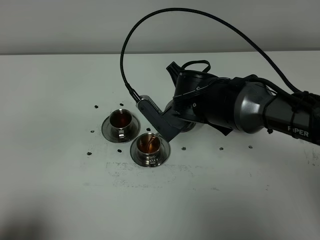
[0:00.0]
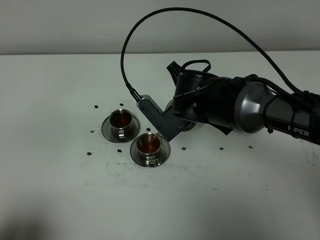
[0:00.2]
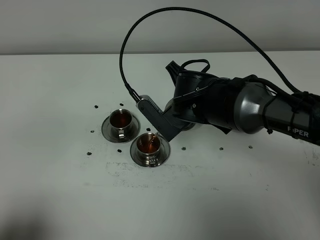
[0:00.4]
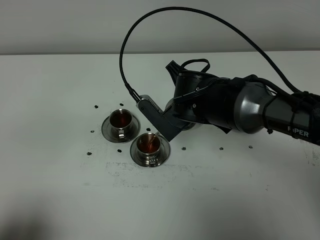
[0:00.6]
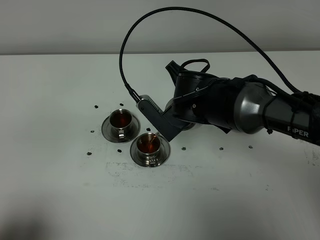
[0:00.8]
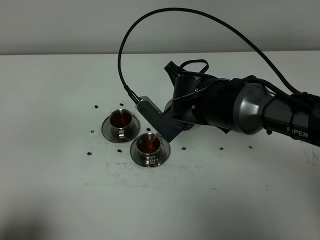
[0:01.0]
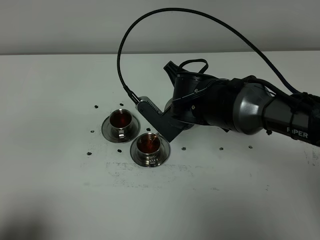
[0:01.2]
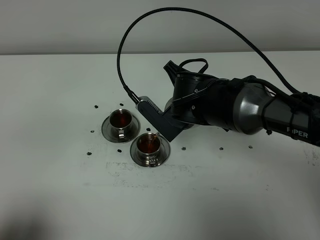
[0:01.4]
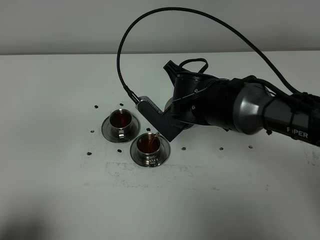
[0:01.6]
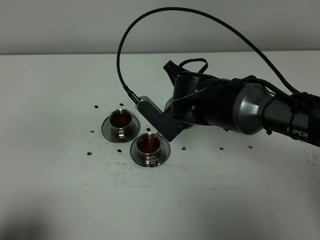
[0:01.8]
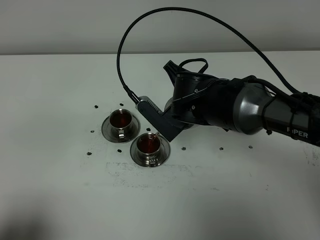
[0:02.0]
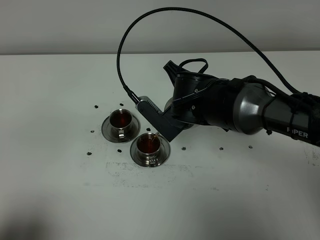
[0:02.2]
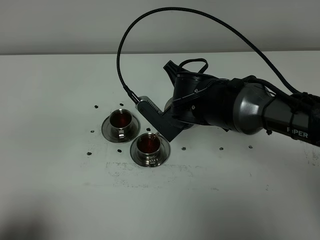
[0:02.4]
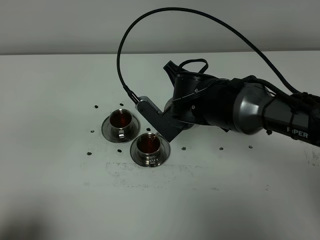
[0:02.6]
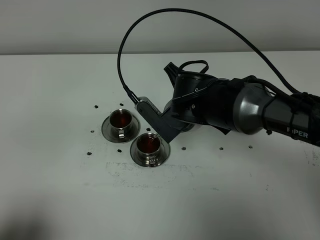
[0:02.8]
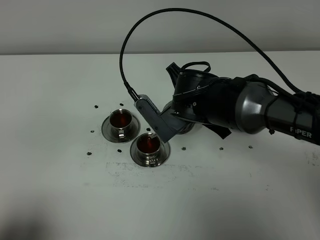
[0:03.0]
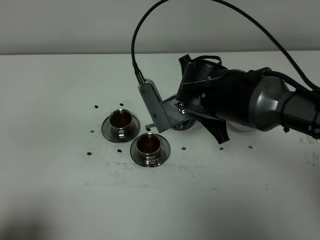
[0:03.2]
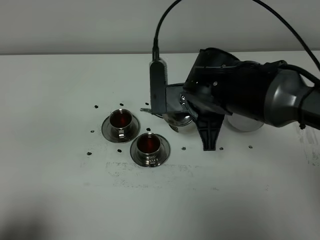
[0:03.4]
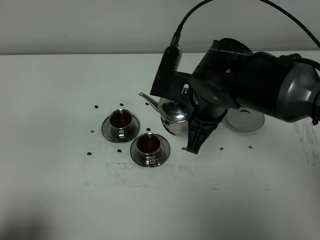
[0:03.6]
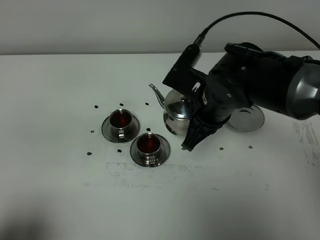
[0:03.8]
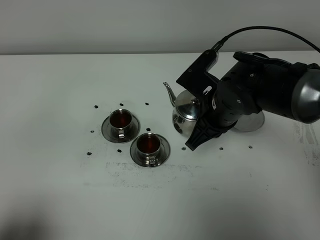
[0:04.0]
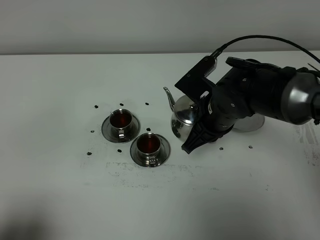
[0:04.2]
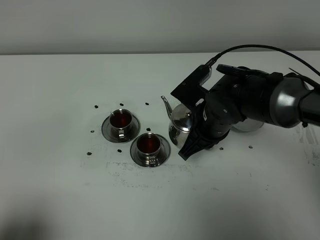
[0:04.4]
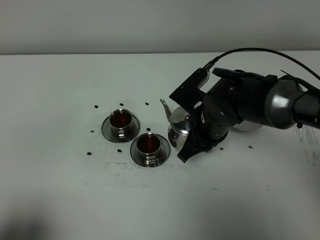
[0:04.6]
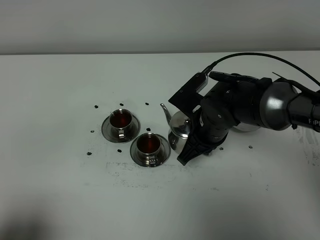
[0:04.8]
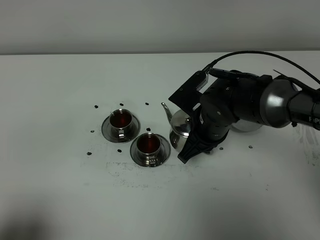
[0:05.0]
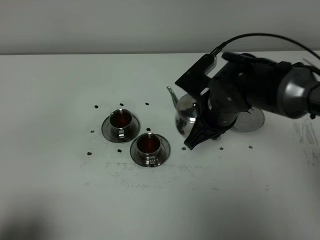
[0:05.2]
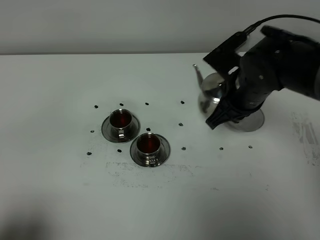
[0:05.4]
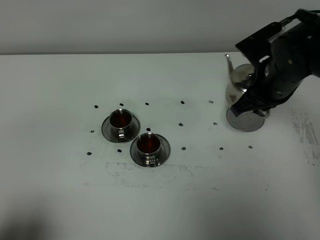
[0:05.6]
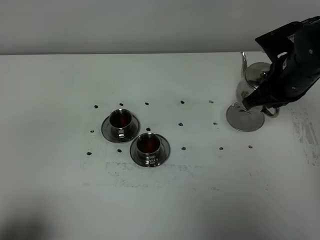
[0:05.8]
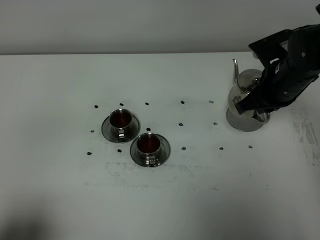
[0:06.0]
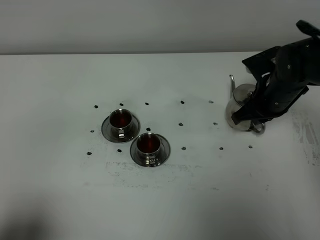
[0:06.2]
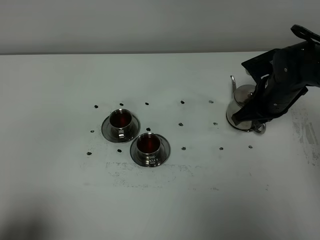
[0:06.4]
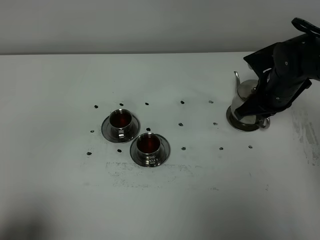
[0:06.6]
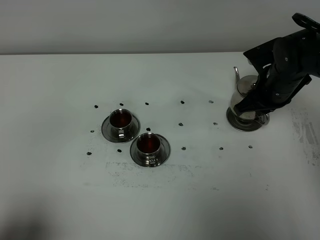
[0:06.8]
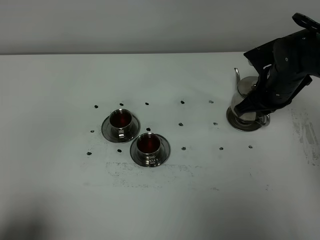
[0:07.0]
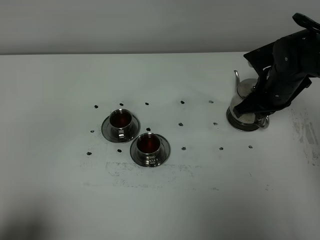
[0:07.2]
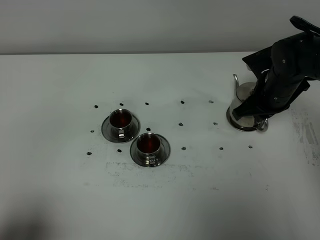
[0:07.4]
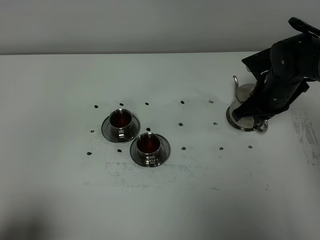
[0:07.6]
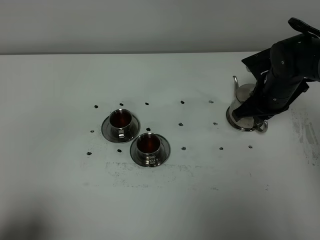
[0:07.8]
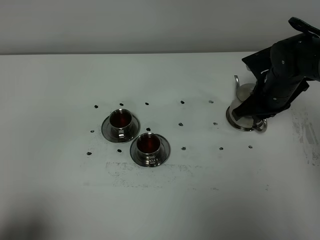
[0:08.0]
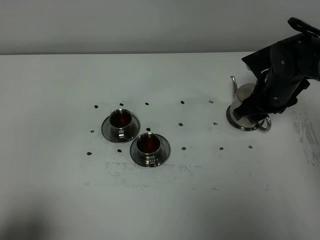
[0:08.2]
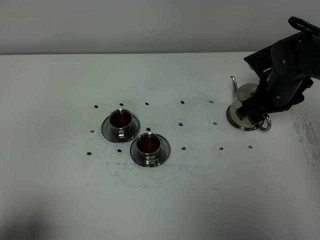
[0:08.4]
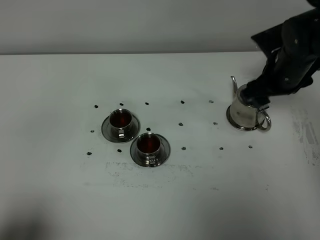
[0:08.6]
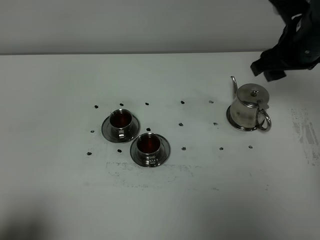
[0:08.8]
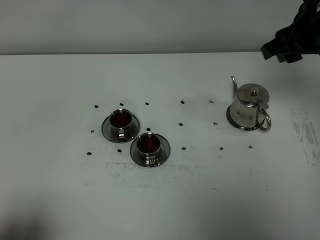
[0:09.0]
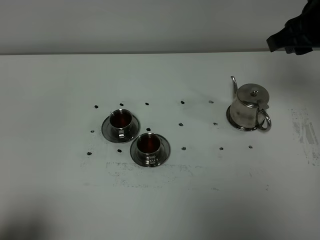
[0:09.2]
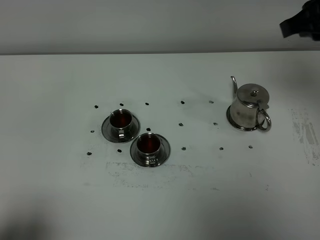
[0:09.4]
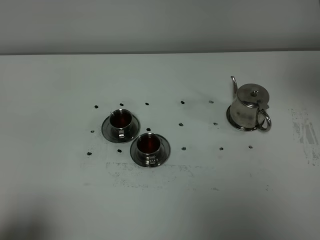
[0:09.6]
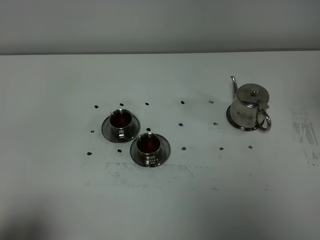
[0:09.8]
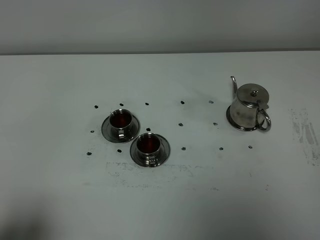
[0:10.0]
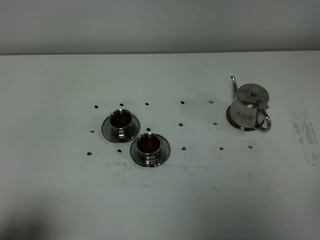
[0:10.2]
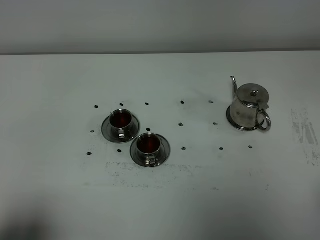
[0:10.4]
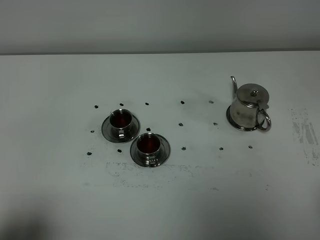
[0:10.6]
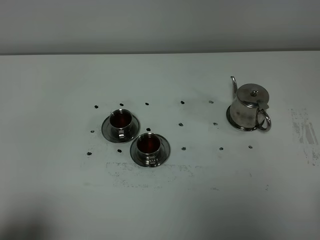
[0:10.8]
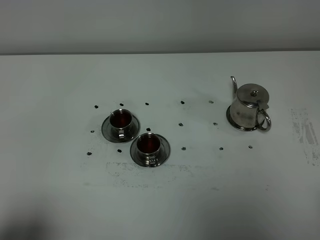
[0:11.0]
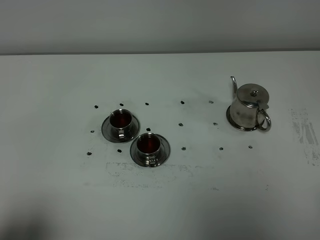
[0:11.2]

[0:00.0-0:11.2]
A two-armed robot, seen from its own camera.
Task of the whole recording: grasp the stainless steel teapot and pour the tea into the two stainless steel teacups one by one, put the stainless steel teapot back in its original place.
Step, 0:00.0 to 0:03.2: Pour tea into the teacup with the right gripper.
0:00.0 to 0:01.6: The two grippers keep their place.
0:03.2 to 0:04.8: The right gripper goes some 5 cm downward.
0:04.8 to 0:06.4: The right gripper moves to the right, roughly 15 cm.
0:06.4 to 0:08.0: The right gripper opens.
0:08.0 to 0:09.6: The right gripper moves upward and backward, roughly 35 cm, and opens, then closes once more.
0:09.6 to 0:11.2: The right gripper heads backward and downward, covering approximately 30 cm.

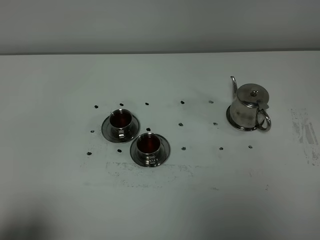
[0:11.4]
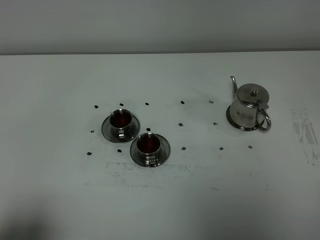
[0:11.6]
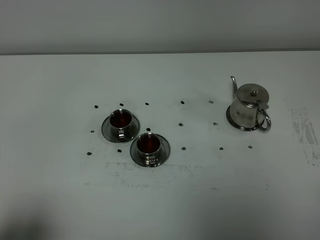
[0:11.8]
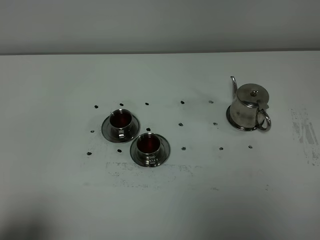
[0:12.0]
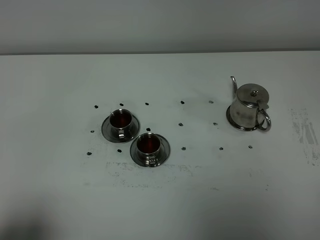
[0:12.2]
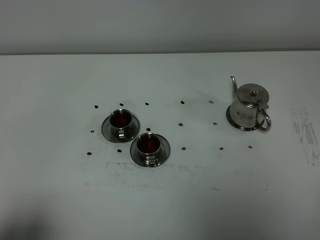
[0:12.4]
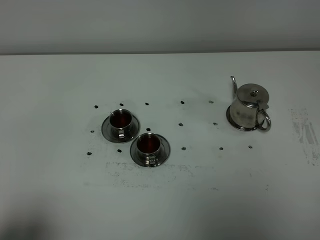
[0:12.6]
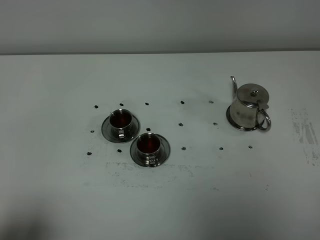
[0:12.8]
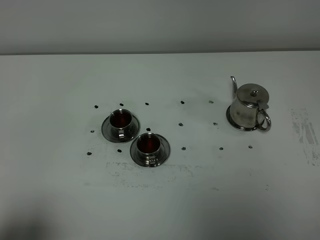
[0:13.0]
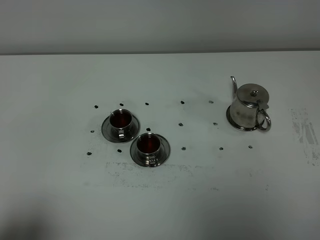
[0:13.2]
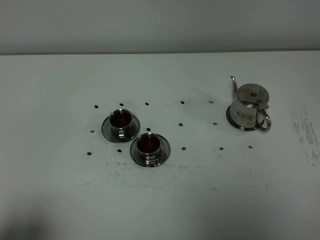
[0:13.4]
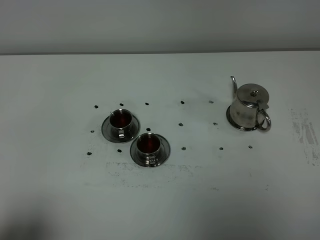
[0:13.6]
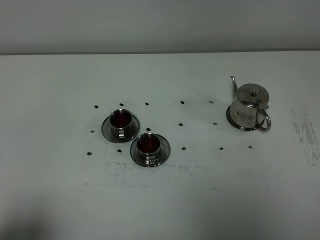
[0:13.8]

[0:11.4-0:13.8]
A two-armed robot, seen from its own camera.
Task of the whole recording: grasp the stainless steel teapot and pour the tea into the two stainless steel teacups one by one, put the stainless steel teapot back in its original place.
0:11.4 to 0:13.8: Both grippers stay put.

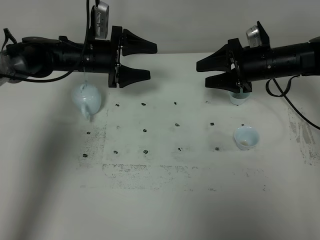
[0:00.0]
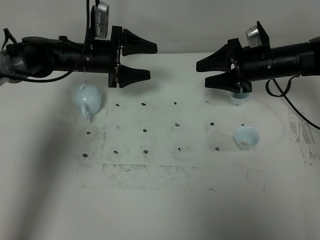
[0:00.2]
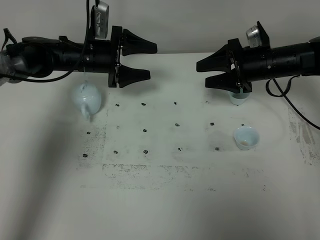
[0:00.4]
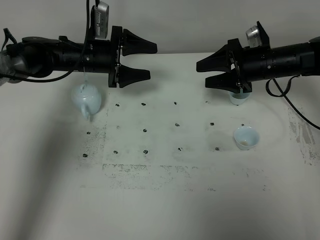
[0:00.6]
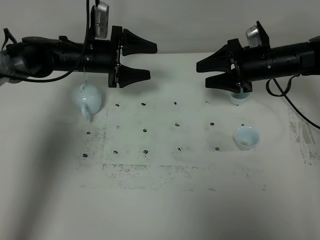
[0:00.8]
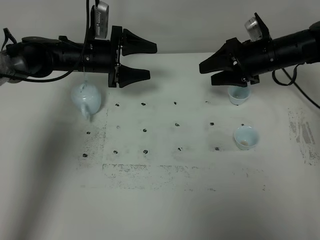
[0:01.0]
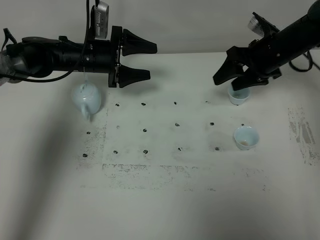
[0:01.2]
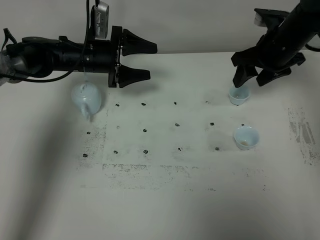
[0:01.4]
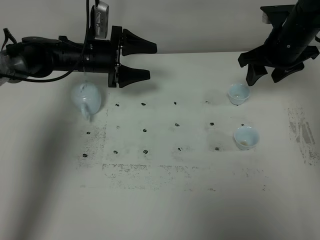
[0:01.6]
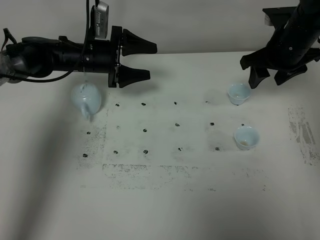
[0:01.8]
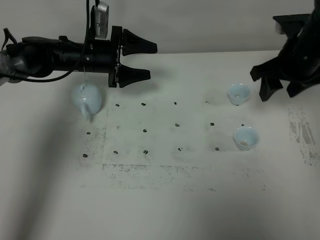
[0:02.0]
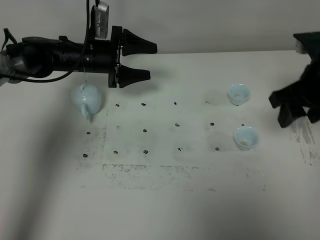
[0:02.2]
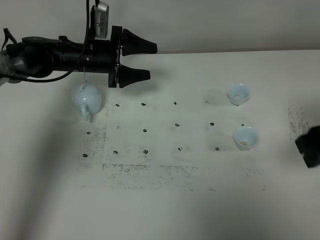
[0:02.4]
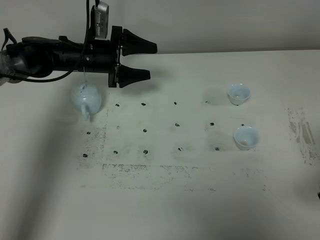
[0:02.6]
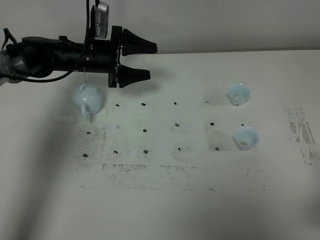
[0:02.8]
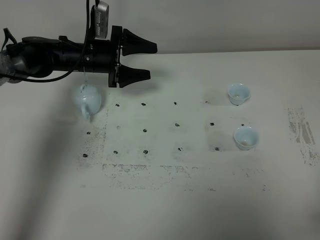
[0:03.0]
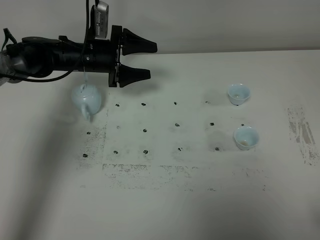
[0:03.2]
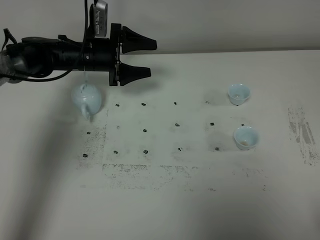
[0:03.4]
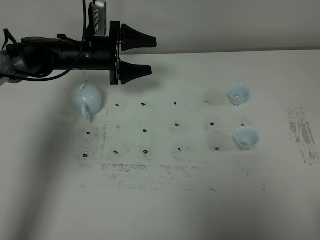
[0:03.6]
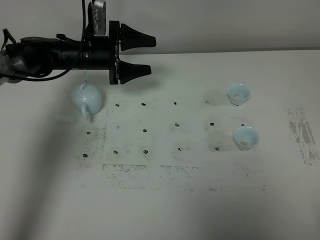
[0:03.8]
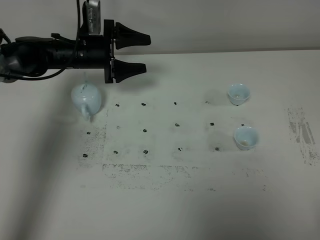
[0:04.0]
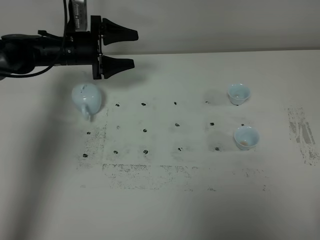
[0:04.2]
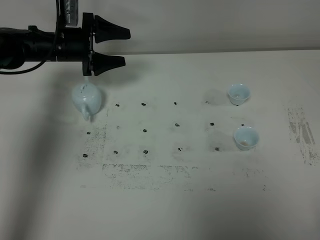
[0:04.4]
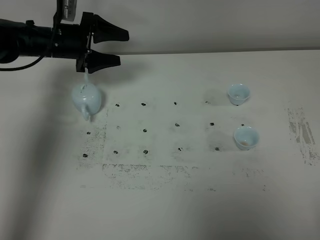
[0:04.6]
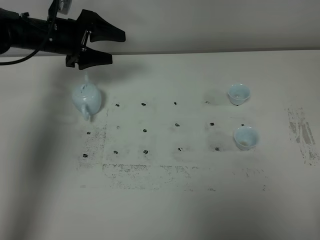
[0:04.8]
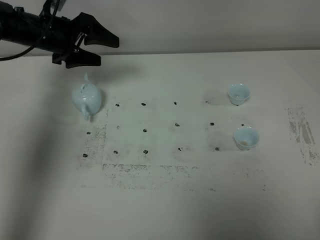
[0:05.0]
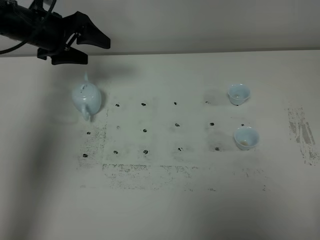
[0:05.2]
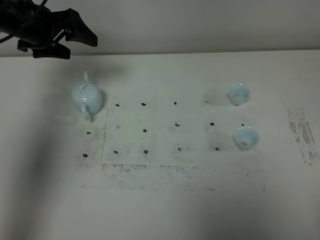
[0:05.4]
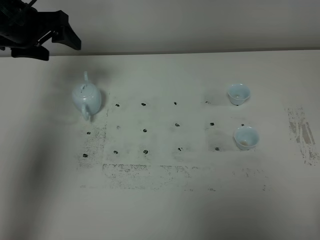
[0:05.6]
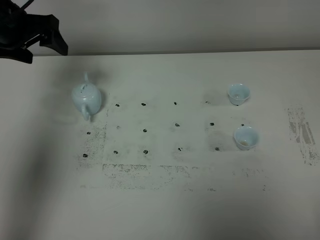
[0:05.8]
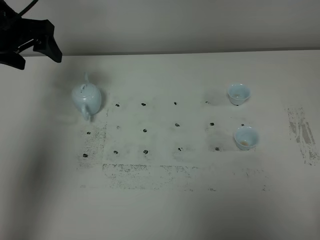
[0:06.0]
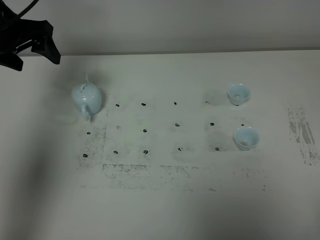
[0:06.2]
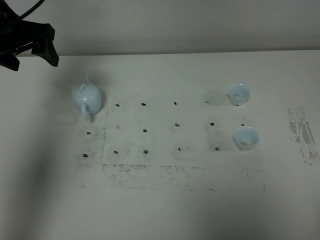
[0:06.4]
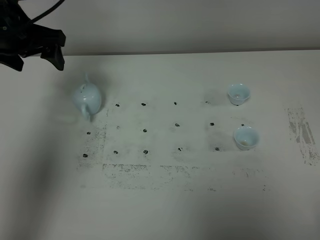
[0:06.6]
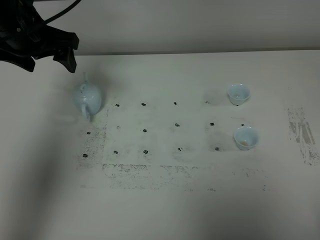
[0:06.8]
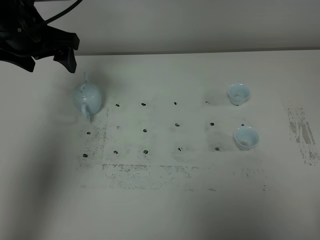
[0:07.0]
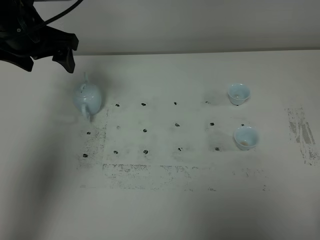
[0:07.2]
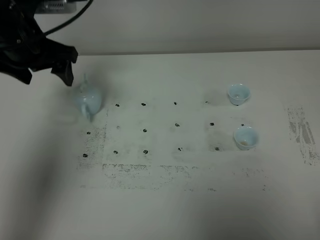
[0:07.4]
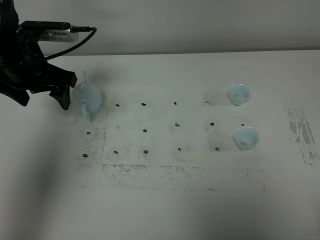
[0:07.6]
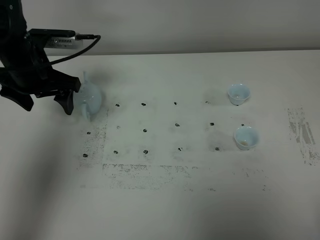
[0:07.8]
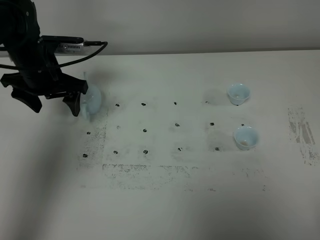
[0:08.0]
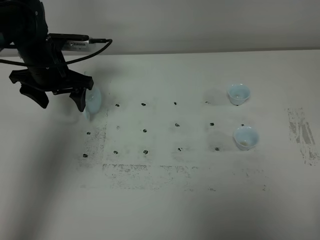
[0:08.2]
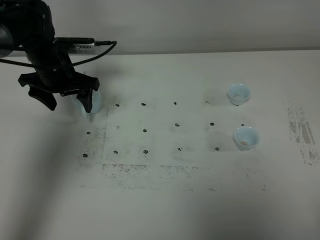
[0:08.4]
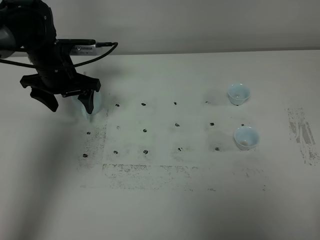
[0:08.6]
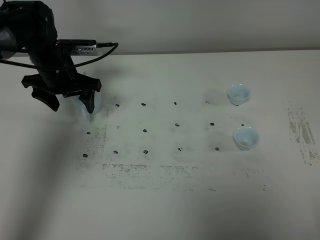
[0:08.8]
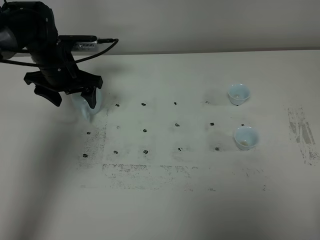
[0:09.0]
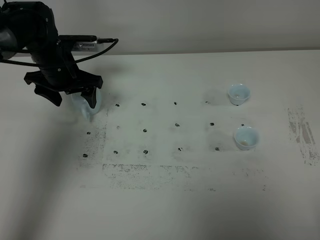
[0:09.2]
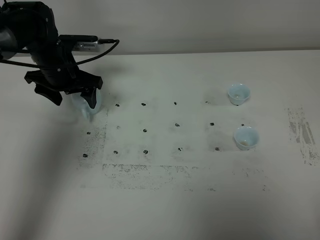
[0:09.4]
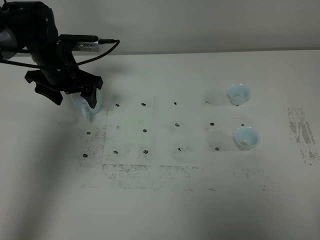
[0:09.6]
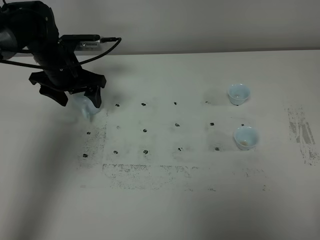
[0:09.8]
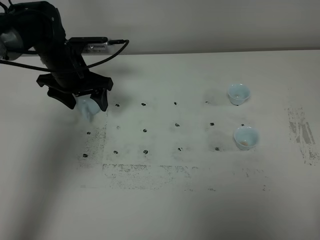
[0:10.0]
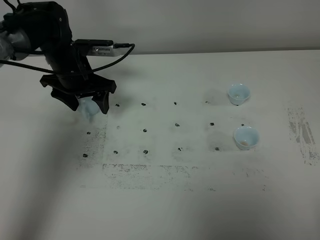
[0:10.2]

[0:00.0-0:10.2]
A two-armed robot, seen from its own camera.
Task of the whole recording: grasp the blue porcelain teapot and pour the tea into the two blue porcelain teacups one by one, put the blue porcelain teapot back in its original place.
0:00.0 to 0:01.4: The right gripper shifts approximately 5 cm upward.
0:01.4 to 0:03.0: The right gripper goes roughly 40 cm backward, and closes its fingers.
0:03.0 to 0:04.4: The right gripper moves backward, some 5 cm. The left gripper travels to the left by roughly 5 cm.
0:04.4 to 0:05.8: The left gripper travels upward, backward and to the left by roughly 15 cm.
0:05.8 to 0:07.2: The left gripper goes about 5 cm to the right.
0:07.2 to 0:08.8: The left gripper heads downward, covering about 15 cm.
0:08.8 to 0:10.2: There are only small adjustments of the grippers.
